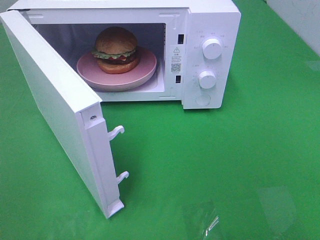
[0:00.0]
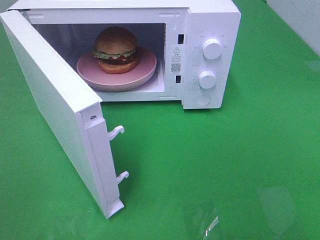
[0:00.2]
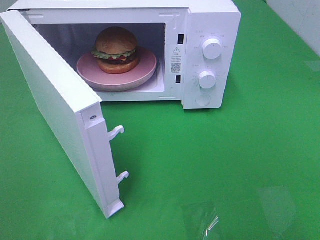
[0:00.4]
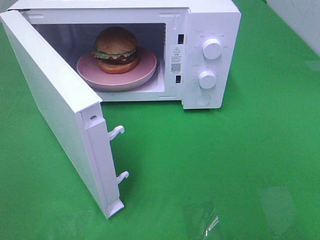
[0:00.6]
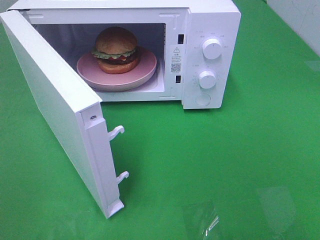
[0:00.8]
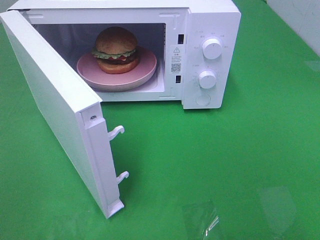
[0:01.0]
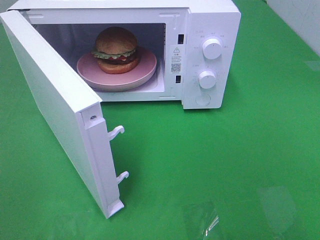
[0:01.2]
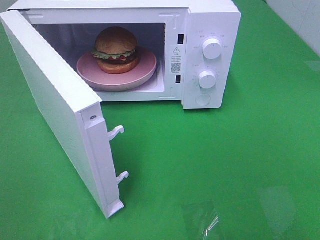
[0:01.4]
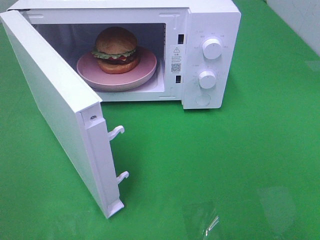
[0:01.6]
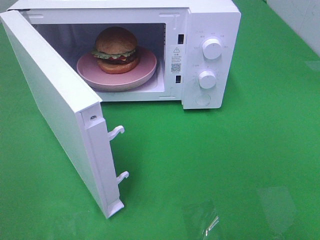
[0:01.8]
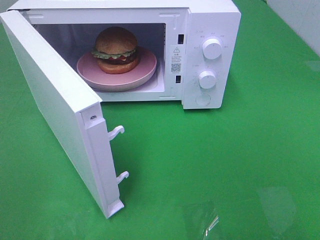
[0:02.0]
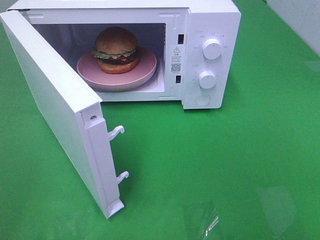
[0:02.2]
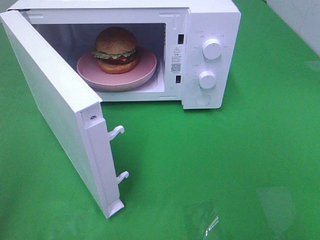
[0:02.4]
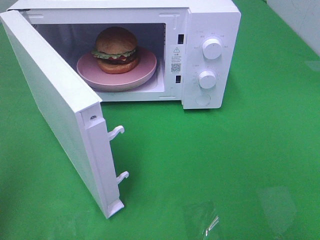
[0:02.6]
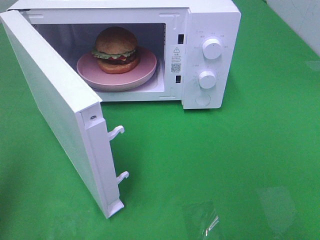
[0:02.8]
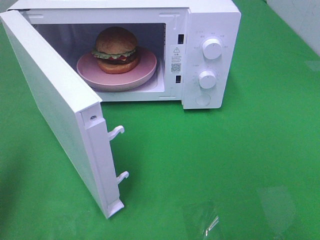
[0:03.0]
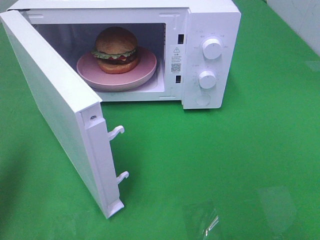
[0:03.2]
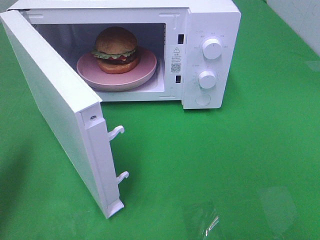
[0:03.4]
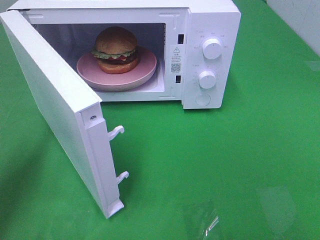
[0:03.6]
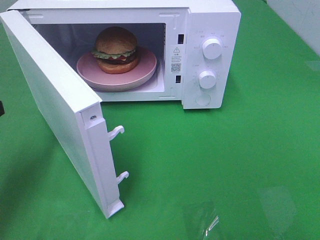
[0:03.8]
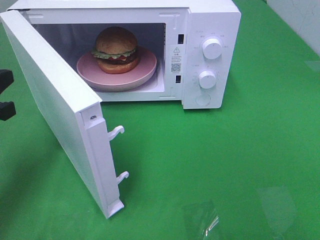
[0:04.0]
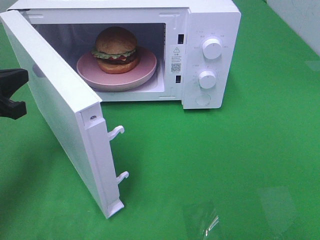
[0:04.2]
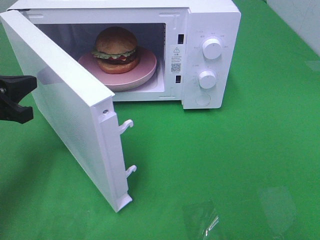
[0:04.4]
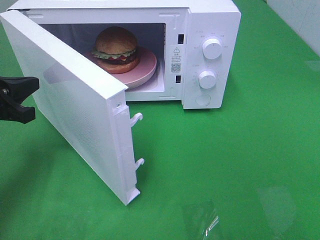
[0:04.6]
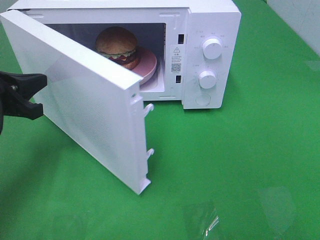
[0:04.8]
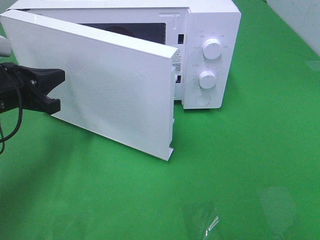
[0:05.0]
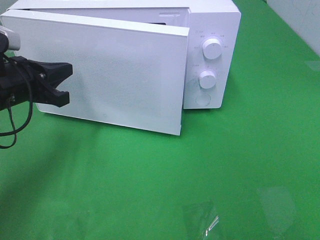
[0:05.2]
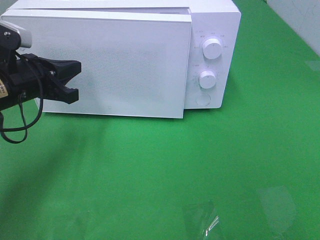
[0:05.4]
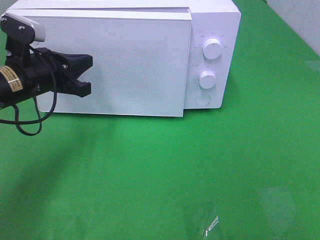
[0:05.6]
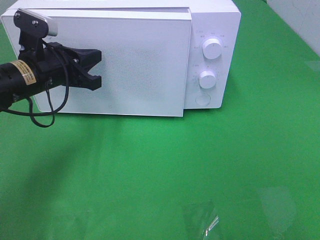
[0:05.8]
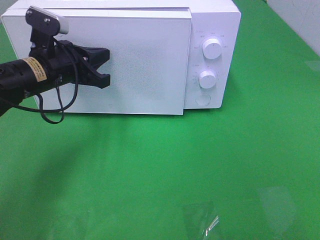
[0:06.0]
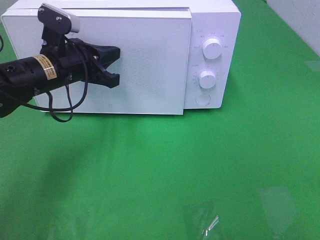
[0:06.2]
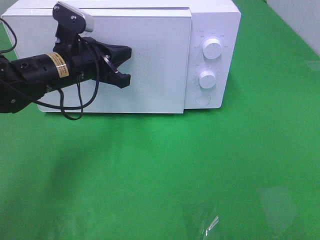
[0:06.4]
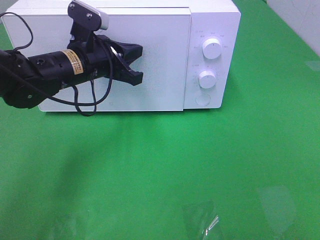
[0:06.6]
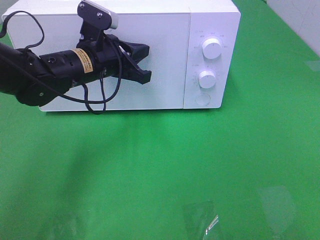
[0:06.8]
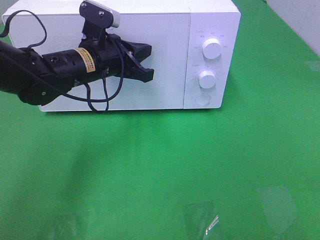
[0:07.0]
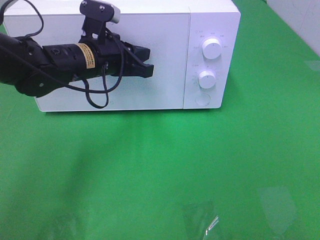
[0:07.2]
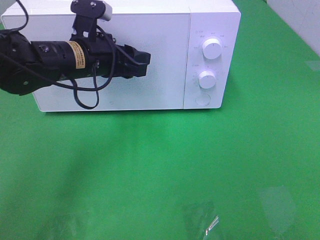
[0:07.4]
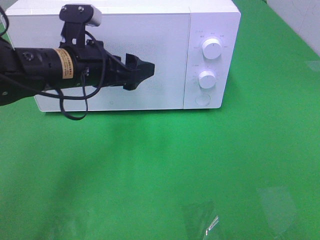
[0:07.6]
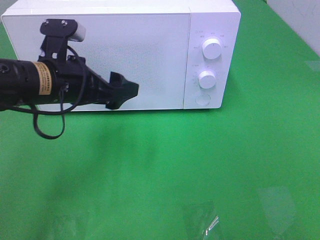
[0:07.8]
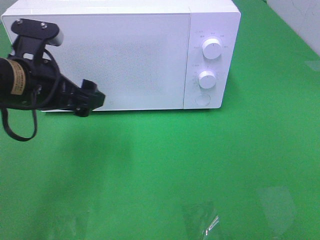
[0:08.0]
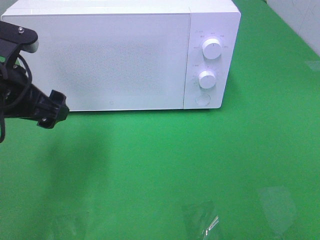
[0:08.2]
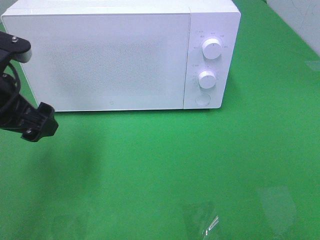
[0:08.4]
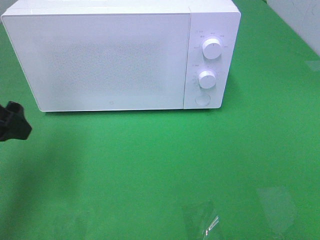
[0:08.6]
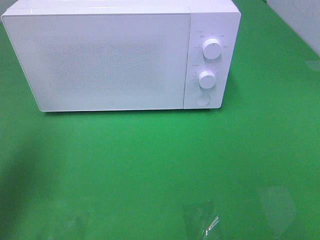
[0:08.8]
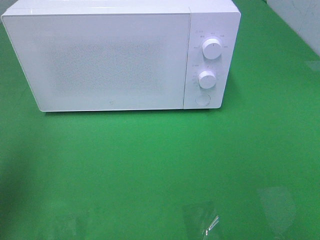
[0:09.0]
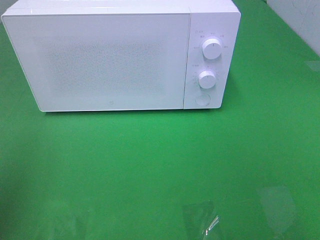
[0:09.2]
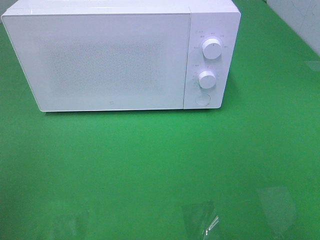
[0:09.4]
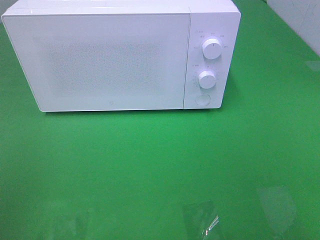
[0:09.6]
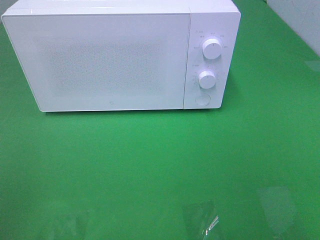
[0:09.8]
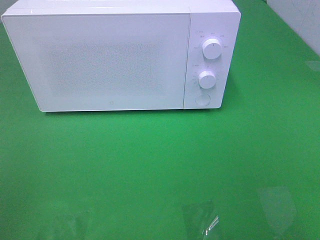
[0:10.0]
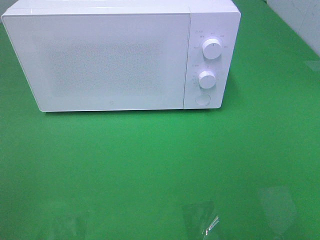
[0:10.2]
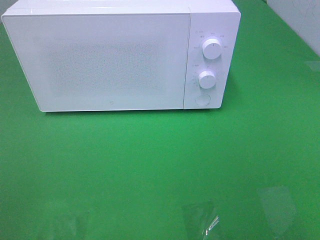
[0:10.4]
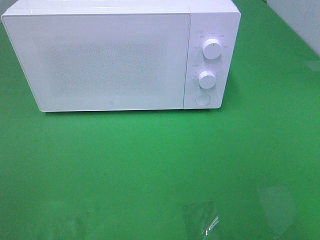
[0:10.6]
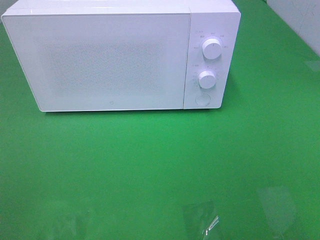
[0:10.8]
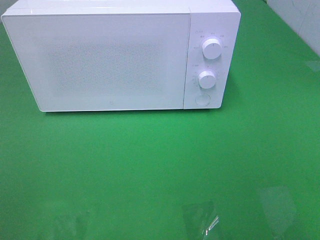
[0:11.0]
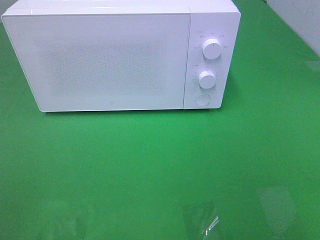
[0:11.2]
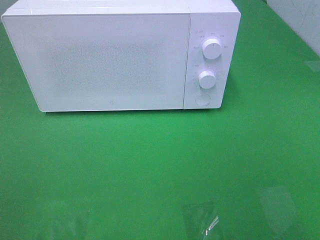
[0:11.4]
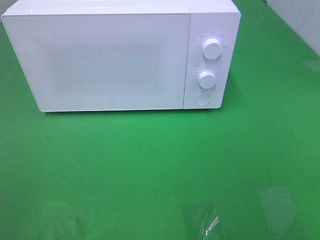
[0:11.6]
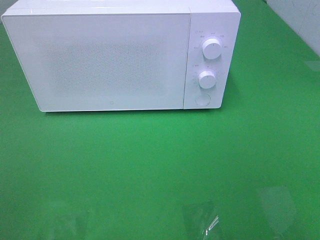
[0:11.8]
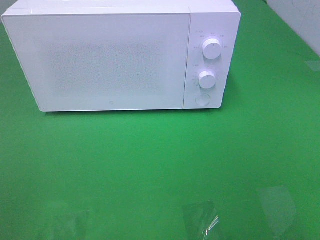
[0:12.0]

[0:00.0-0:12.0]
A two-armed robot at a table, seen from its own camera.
Task of the whole recording: Heat the burger.
Step, 0:00.0 to 0:07.2: Left hand: close the microwave door.
0:00.0 to 0:01.6: Both grippers stay about where they are.
0:01.6 to 0:03.0: The left gripper moves forward, some 15 cm, and closes up.
0:03.0 to 0:04.4: The left gripper moves forward and downward, approximately 15 cm.
0:04.4 to 0:06.0: The left gripper goes about 15 cm to the right and forward.
0:06.0 to 0:07.6: The left gripper ends up about 5 cm from where it was, and opens up.
0:07.6 to 0:09.0: The left gripper shifts some 25 cm to the left, backward and upward.
0:09.0 to 0:10.4: The left gripper travels backward by some 15 cm.
0:10.4 to 0:12.0: Both grippers stay about where they are.

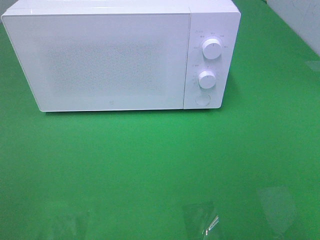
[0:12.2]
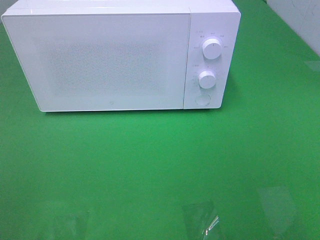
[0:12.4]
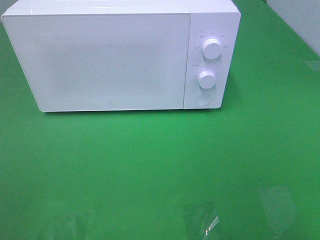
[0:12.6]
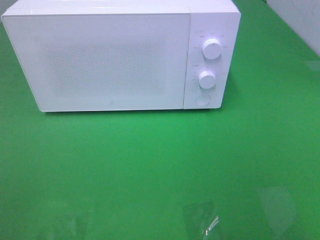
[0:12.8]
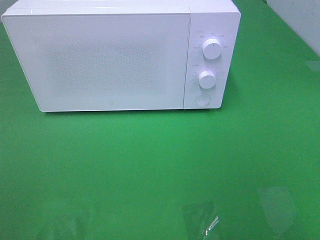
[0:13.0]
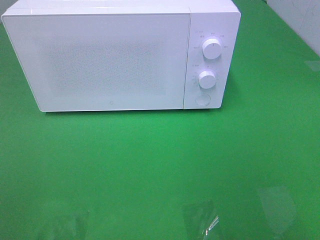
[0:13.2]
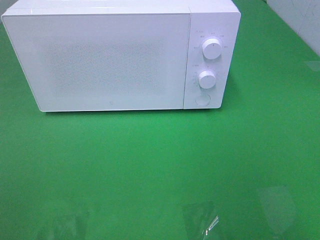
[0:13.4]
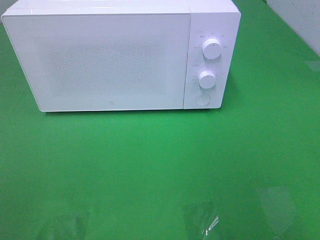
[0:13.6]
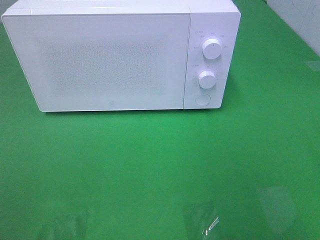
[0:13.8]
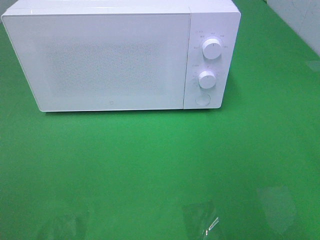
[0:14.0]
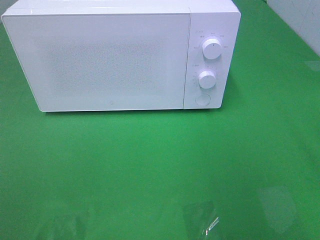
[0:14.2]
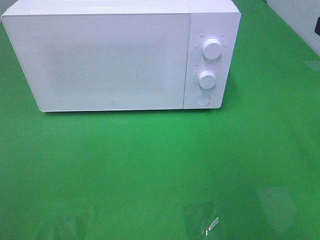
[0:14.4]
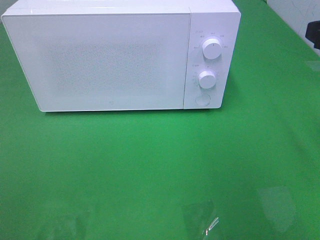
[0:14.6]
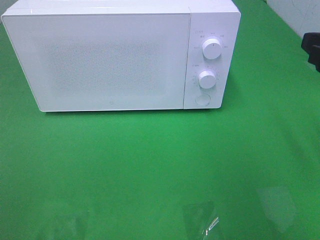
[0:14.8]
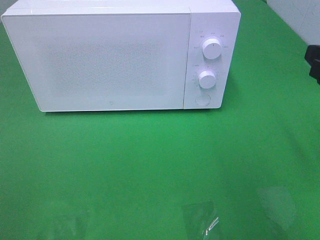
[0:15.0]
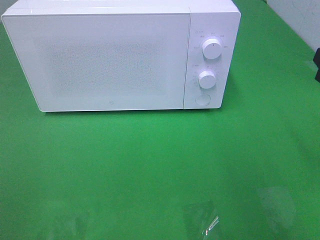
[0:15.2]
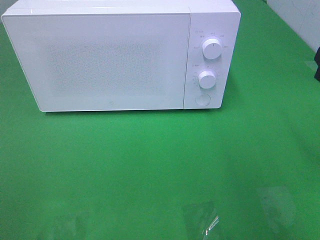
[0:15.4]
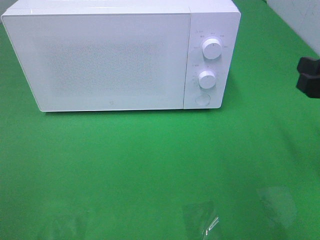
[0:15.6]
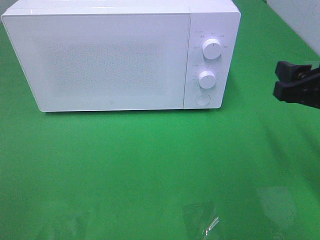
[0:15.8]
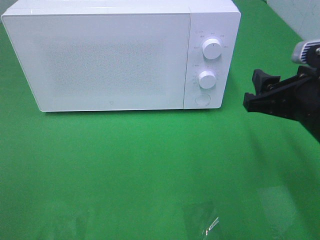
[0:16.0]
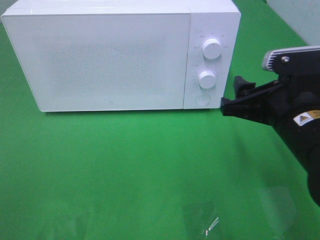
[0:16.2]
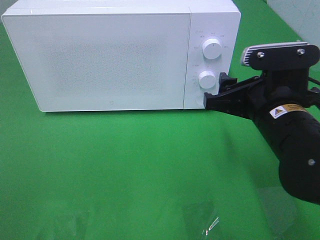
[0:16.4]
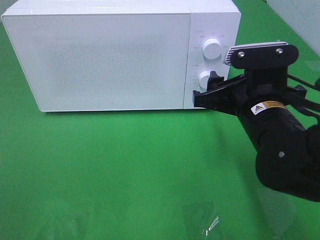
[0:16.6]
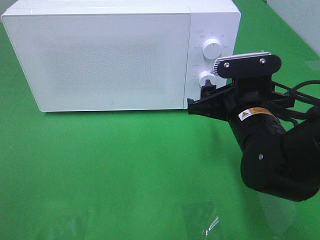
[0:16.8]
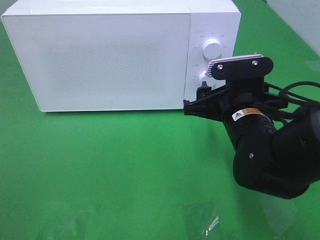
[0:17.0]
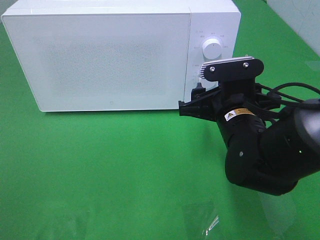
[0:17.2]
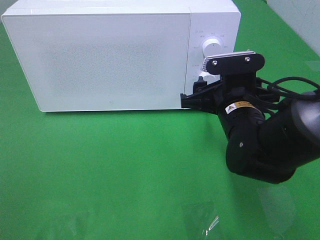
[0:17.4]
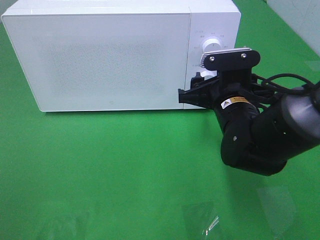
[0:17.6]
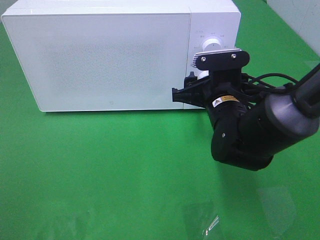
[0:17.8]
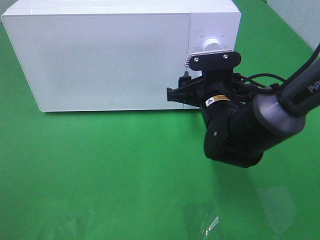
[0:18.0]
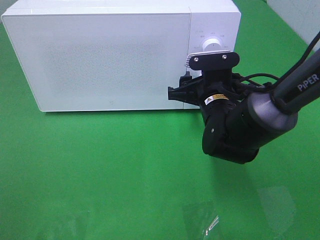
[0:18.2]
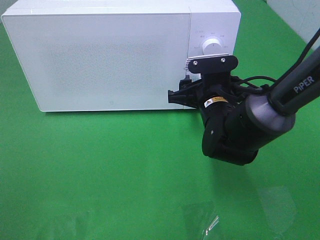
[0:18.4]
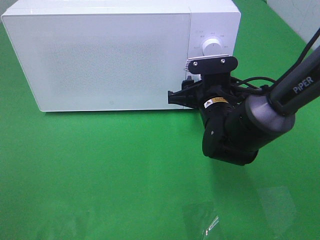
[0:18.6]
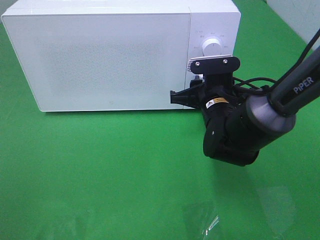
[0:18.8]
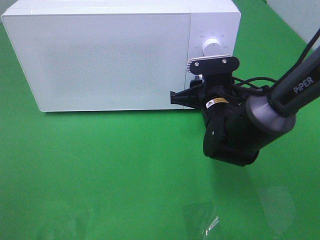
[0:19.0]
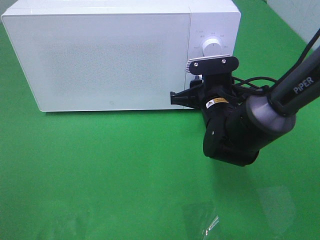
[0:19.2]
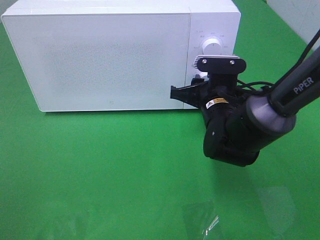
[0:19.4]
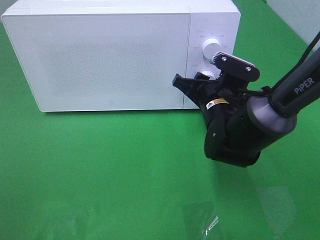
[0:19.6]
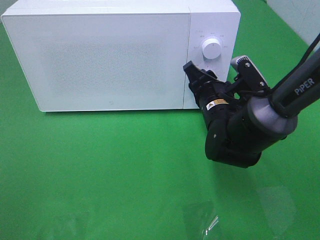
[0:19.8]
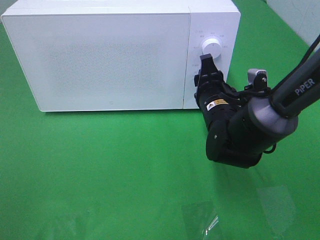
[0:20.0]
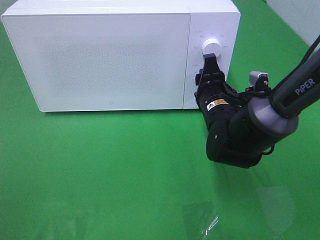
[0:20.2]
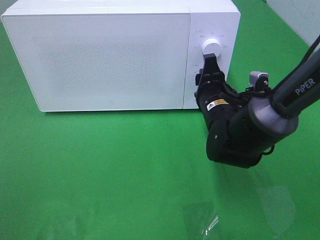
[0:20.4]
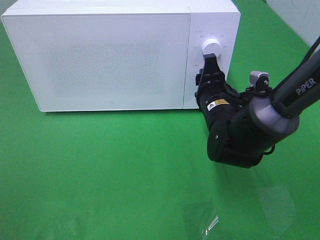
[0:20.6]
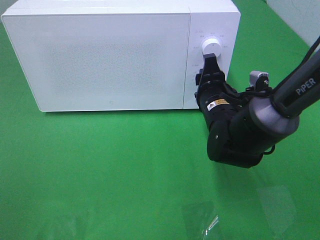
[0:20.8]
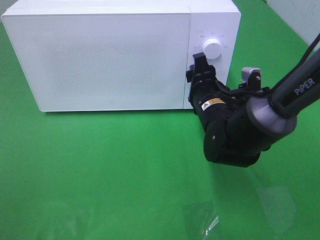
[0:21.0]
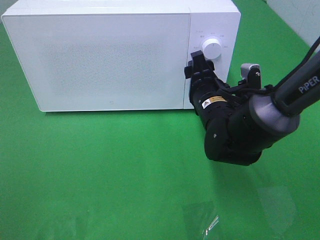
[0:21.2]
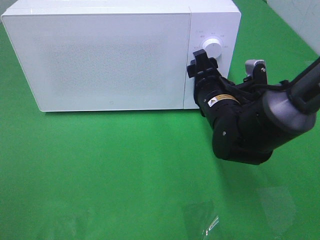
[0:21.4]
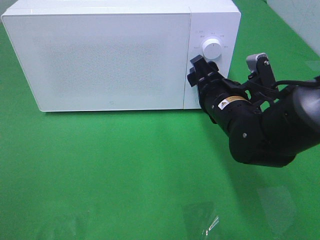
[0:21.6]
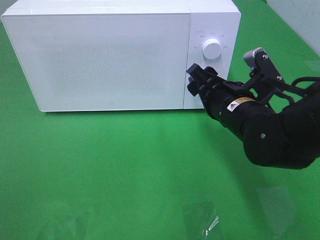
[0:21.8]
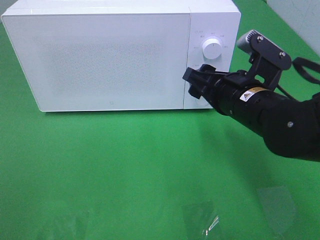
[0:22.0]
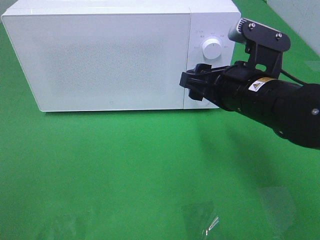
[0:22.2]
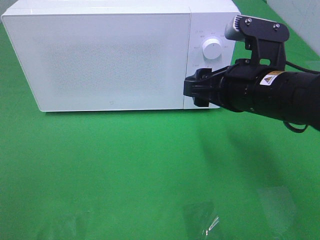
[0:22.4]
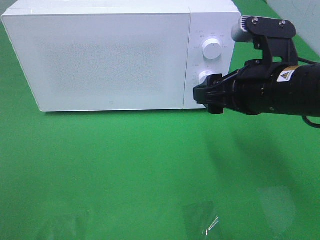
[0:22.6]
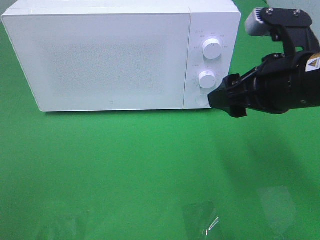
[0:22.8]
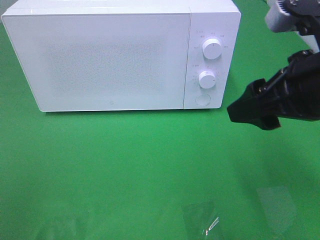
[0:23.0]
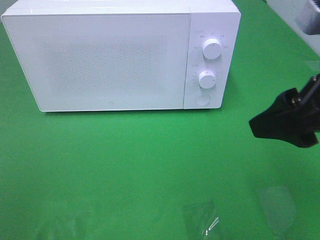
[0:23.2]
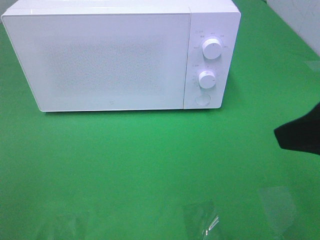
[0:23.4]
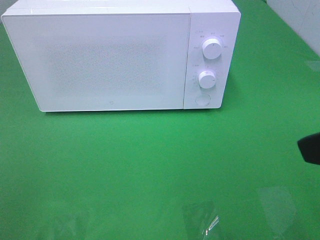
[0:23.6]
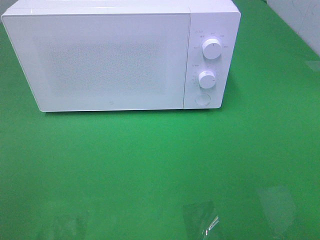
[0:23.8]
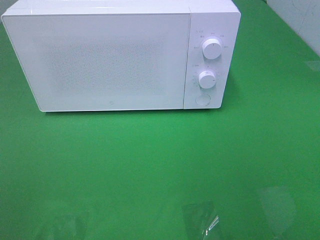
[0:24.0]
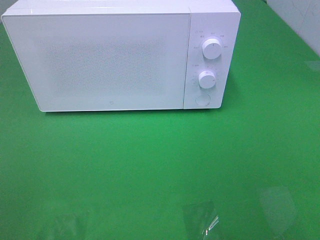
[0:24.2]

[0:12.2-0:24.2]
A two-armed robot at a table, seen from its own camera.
Task of the whole recording: Heat the burger.
Step, 0:12.2 to 0:21.0: Right hand: twist timer button.
0:15.2 to 0:16.6: The right gripper moves to the left and downward, about 15 cm.
0:16.6 to 0:18.2: The right gripper goes roughly 10 cm forward and downward.
0:21.2 to 0:22.6: The right gripper travels upward, backward and to the right by approximately 15 cm.
0:22.6 to 0:24.2: The right gripper is displaced backward and to the right by roughly 25 cm.
